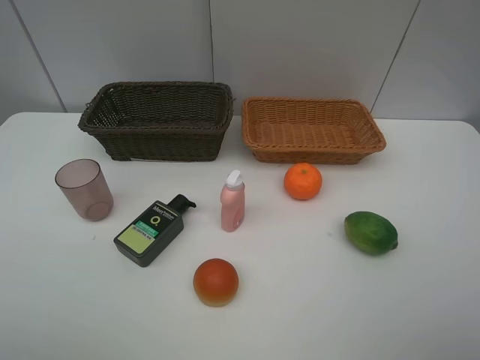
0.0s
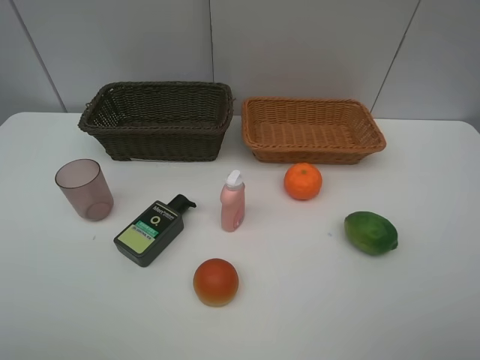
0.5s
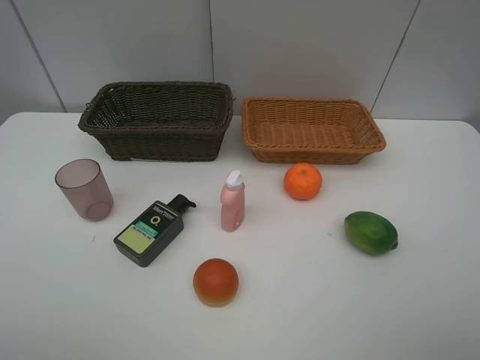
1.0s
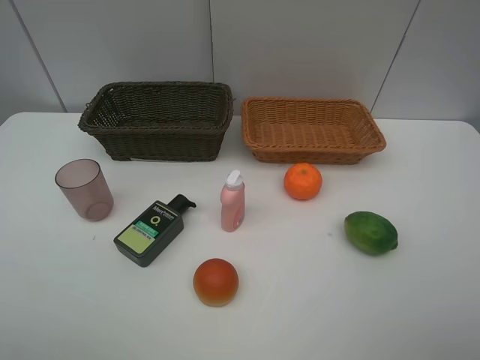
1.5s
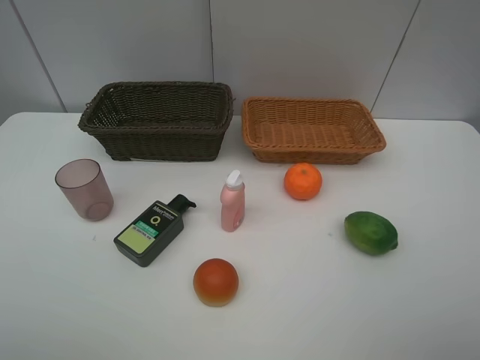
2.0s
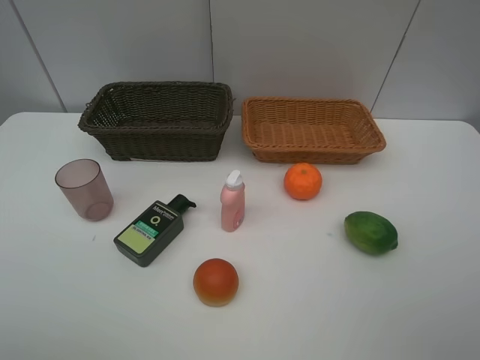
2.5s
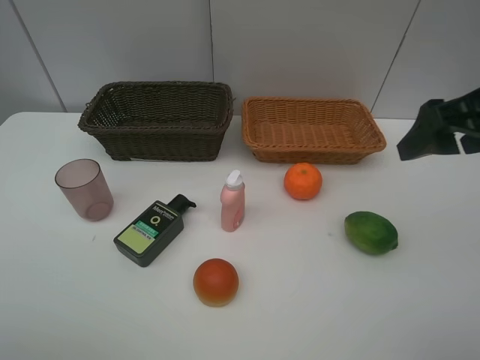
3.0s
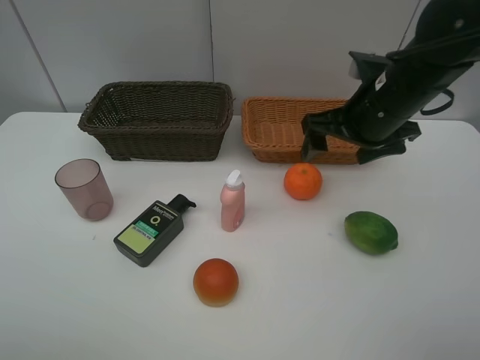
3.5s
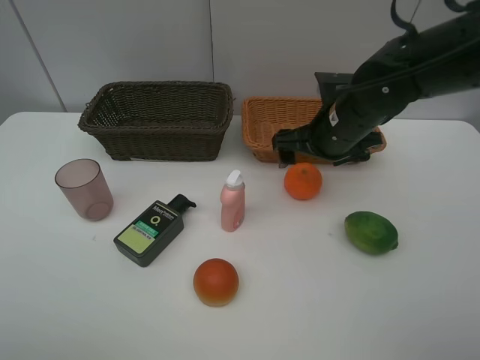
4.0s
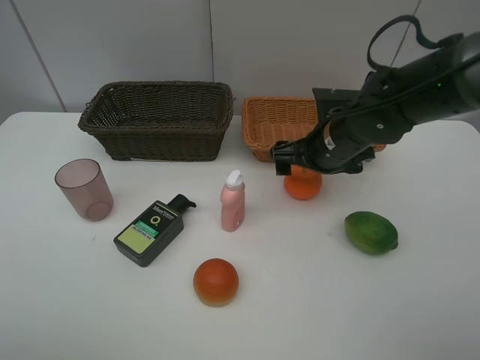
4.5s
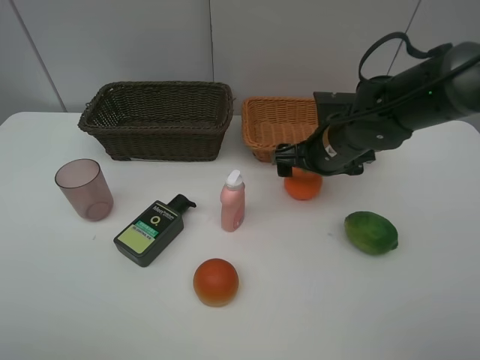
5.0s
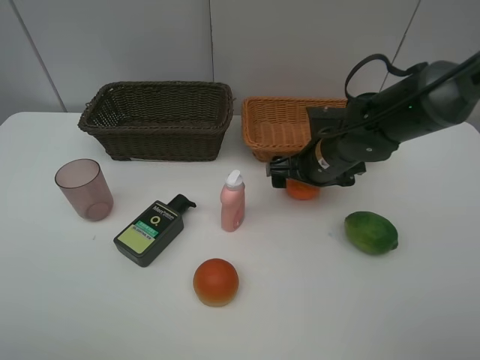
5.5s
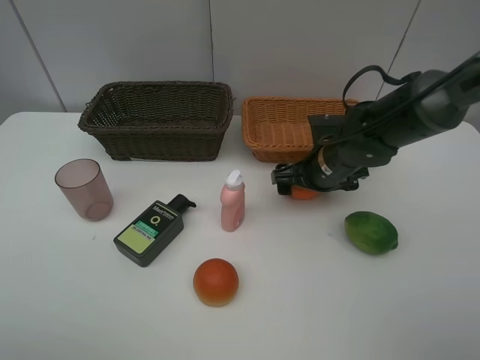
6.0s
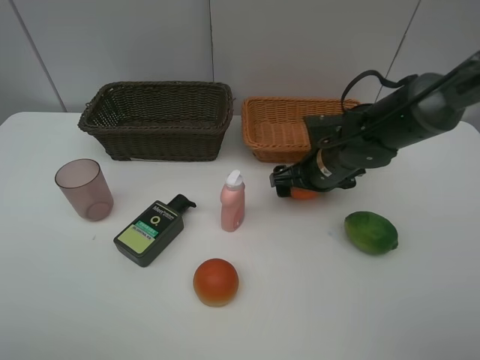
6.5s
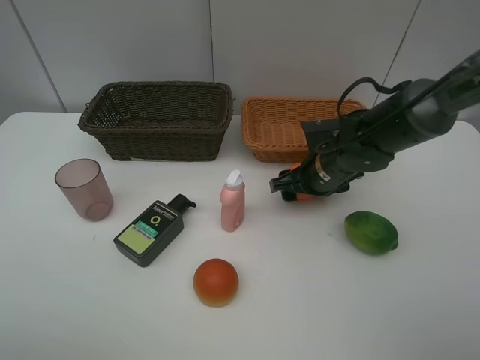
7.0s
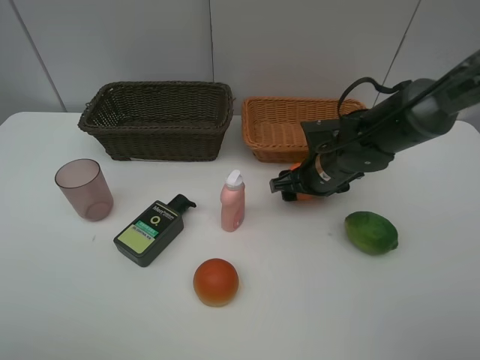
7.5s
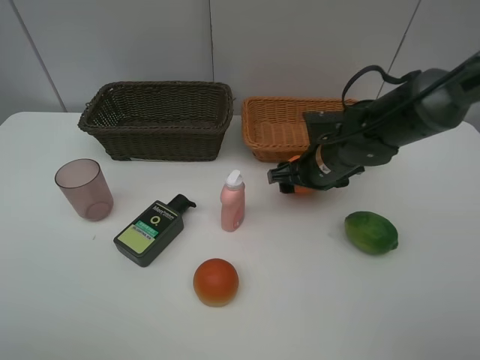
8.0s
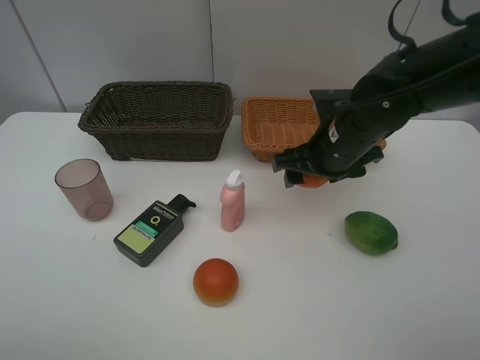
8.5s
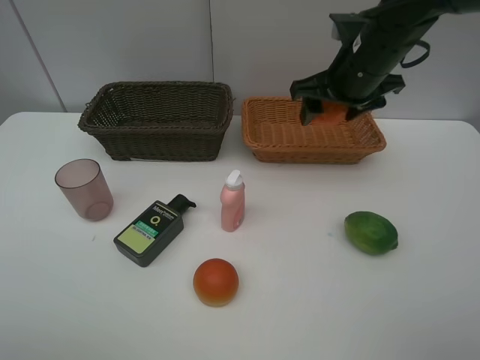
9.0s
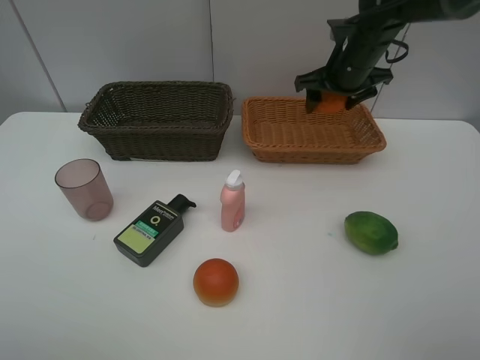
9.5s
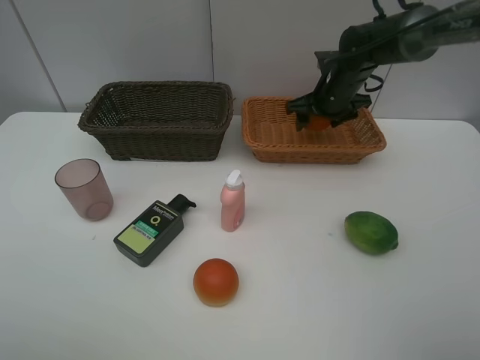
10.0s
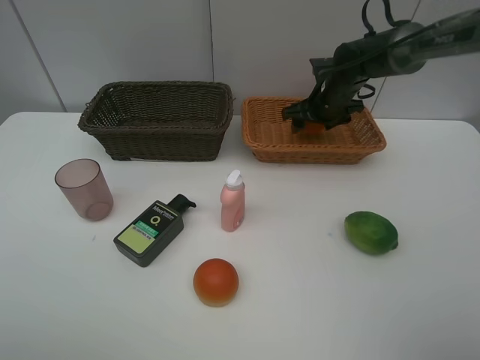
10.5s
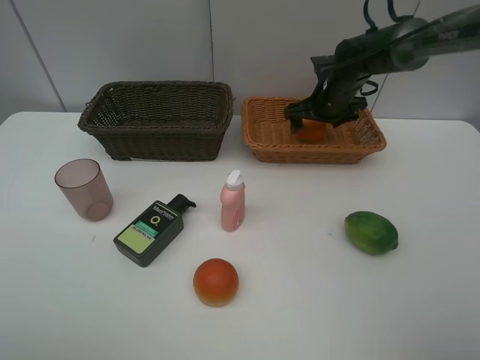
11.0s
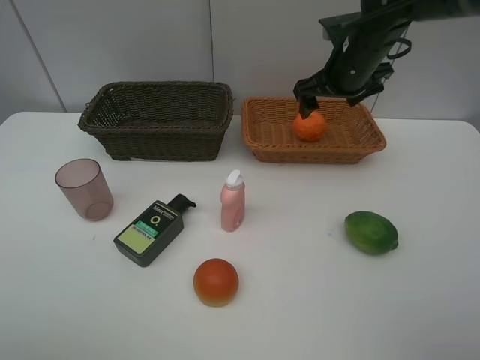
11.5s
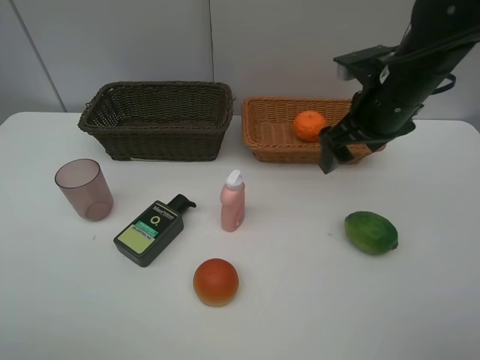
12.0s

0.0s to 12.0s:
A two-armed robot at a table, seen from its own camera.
Task of the whole recording: place multiple objects separately in different baskets.
0.0s to 2.0s: The two grippers keep their place.
2.0s to 4.0s: The right gripper goes roughly 35 cm forward and to the left.
4.0s to 6.0s: The right gripper heads downward, covering roughly 5 cm.
6.0s to 8.0s: The right gripper closes its fingers.
8.0s to 10.0s: The right gripper travels forward by roughly 15 cm.
10.0s to 12.0s: The right gripper shifts about 20 cm backward and upward.

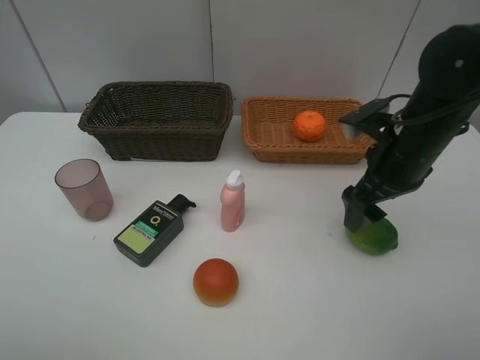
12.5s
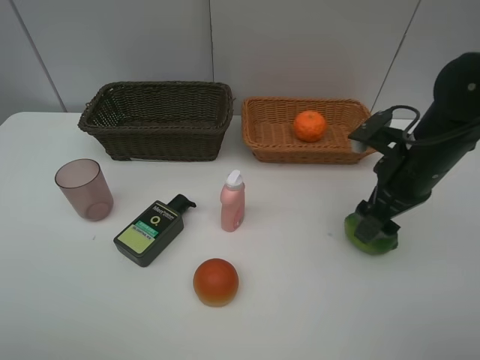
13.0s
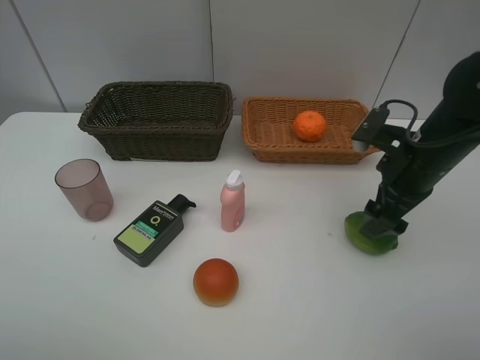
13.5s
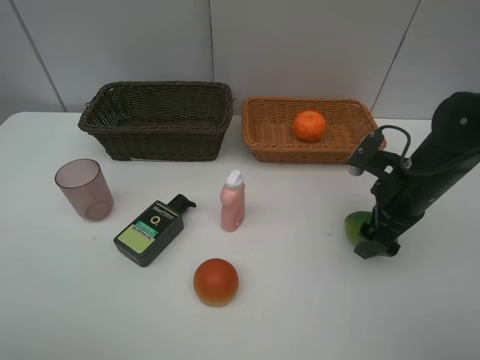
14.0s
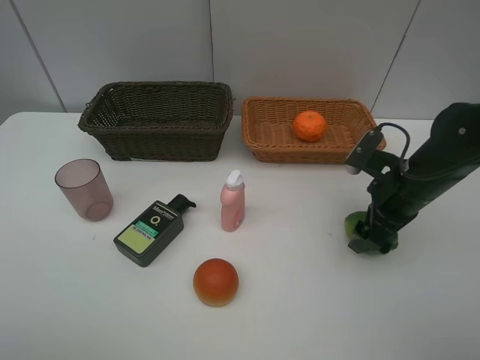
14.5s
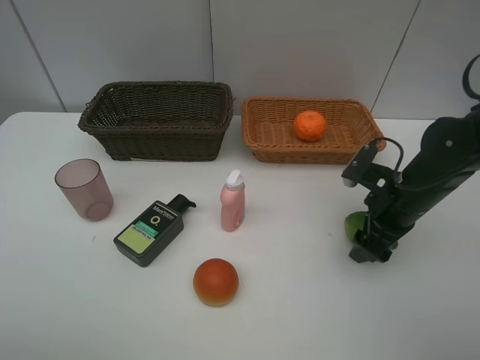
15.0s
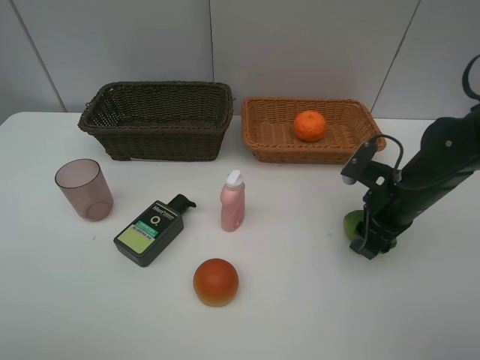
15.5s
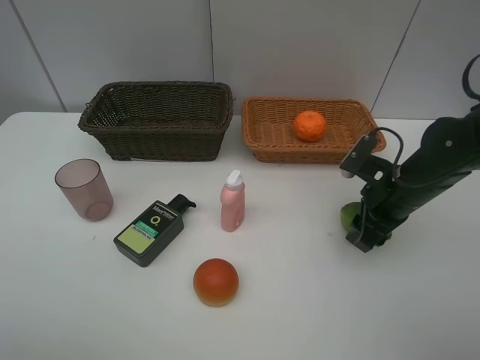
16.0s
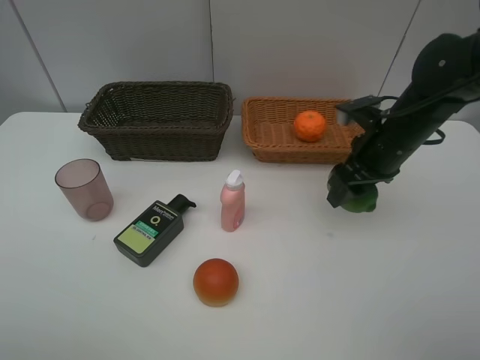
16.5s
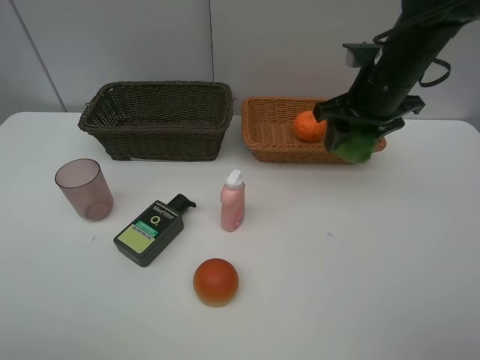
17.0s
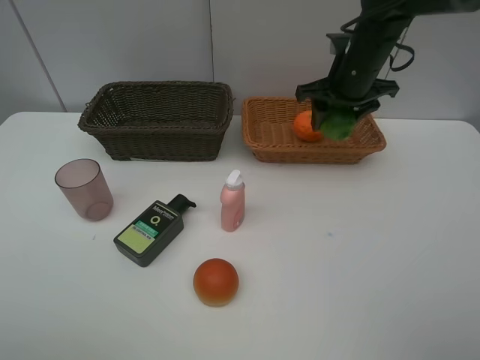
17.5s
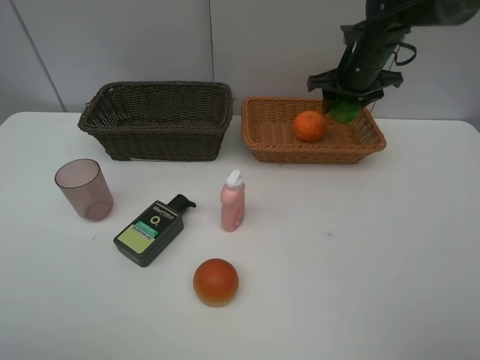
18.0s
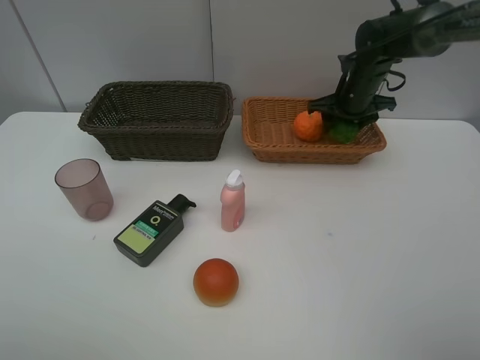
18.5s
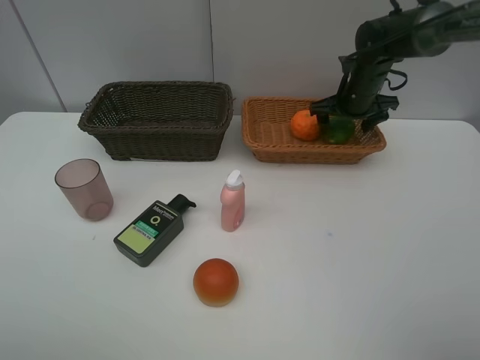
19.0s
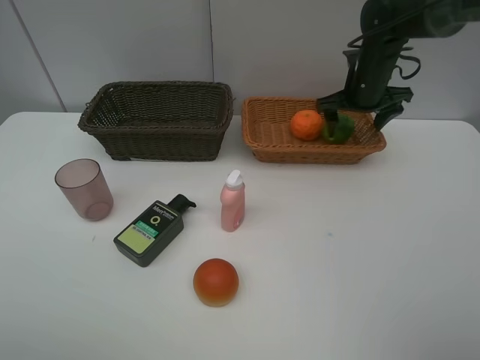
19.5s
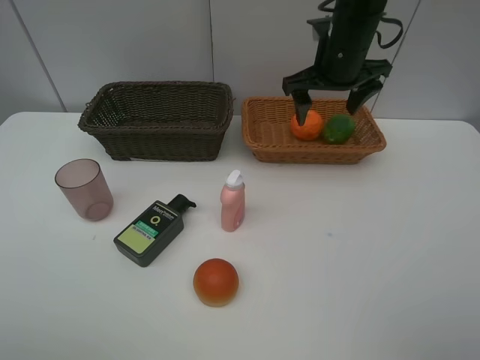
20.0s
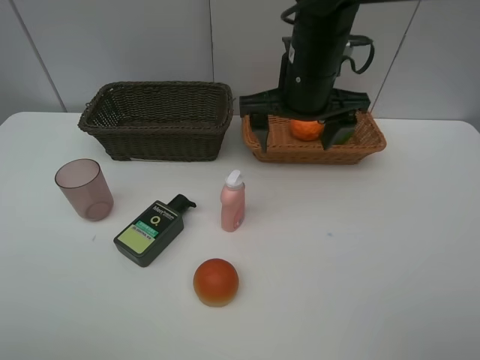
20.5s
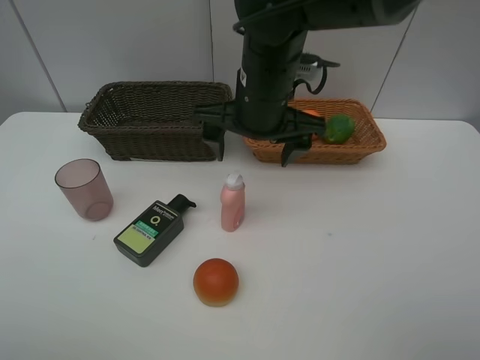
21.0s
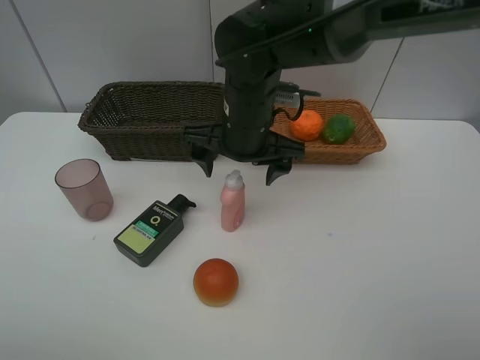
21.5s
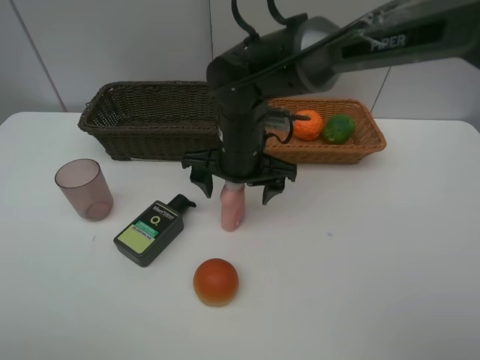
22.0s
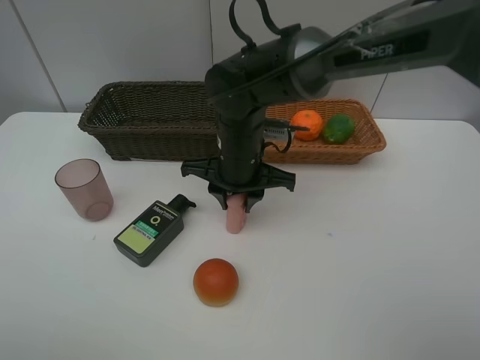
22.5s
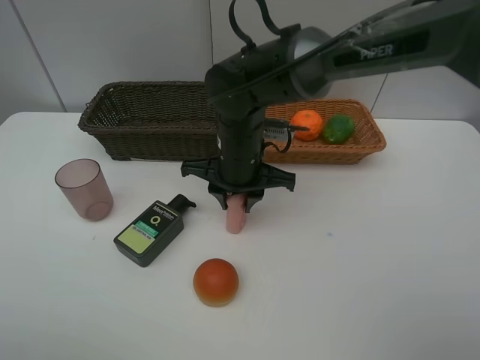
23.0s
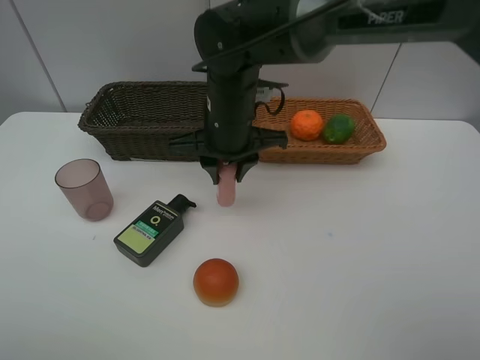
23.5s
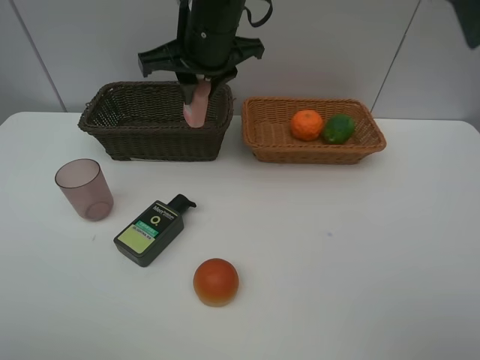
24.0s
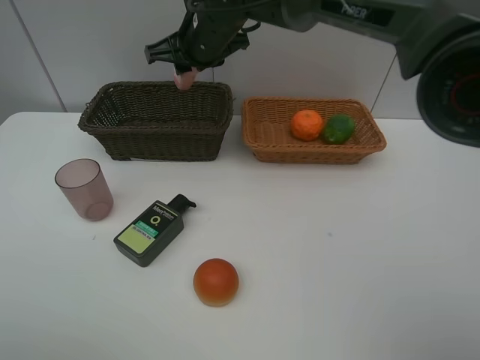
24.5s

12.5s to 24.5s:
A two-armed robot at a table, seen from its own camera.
Task of the whole recording: place multiple objects separately in different baskets.
12.5s to 14.5s: The right gripper is displaced downward by some 5 cm.
14.5s to 16.5s: The right gripper shifts by approximately 5 cm, and closes.
16.5s to 18.5s: The right gripper shifts approximately 15 cm forward.
18.5s to 20.5s: The right gripper heads backward, to the left and upward, covering roughly 25 cm, and opens.
20.5s to 22.5s: The right gripper moves downward and to the left, approximately 15 cm, and closes.
22.5s to 24.5s: The right gripper shifts about 15 cm forward and upward.

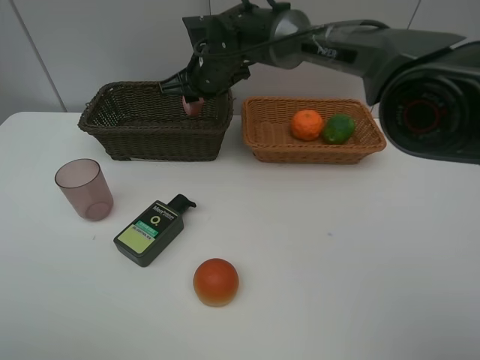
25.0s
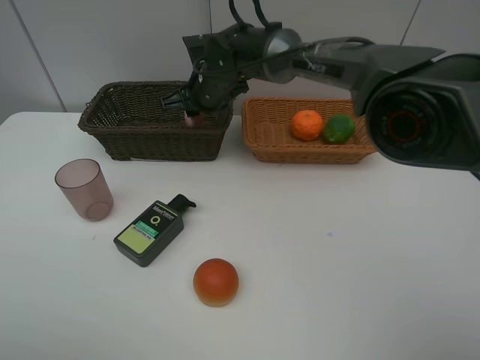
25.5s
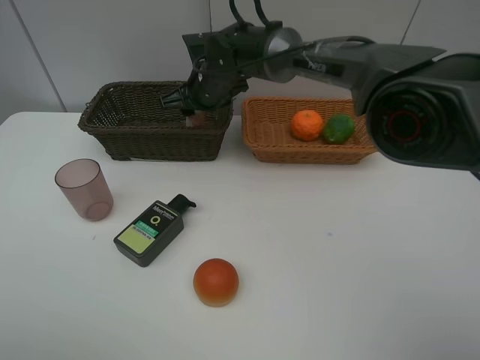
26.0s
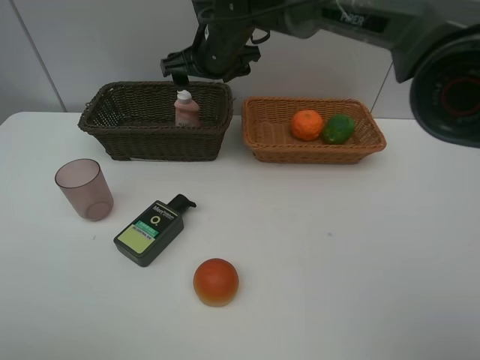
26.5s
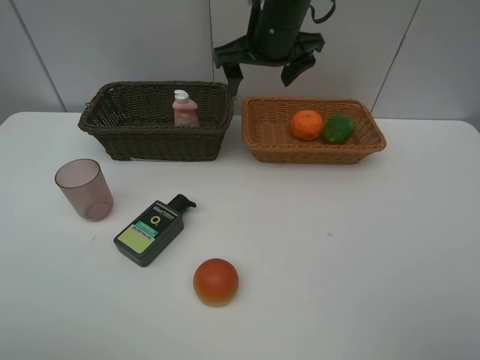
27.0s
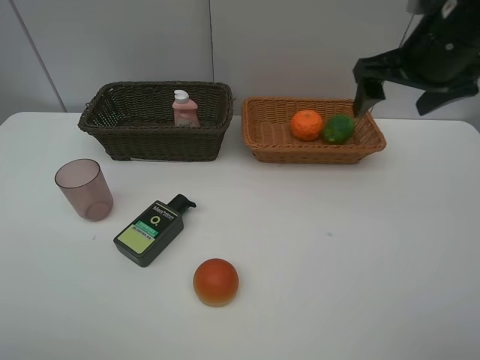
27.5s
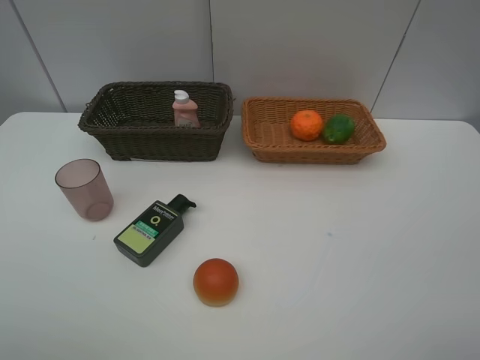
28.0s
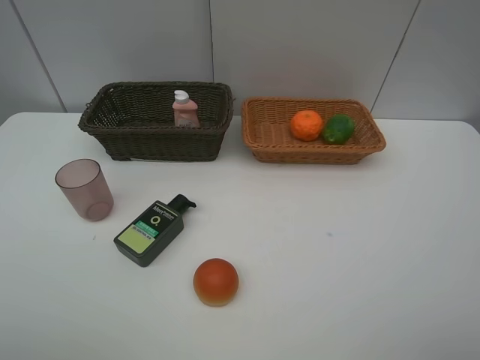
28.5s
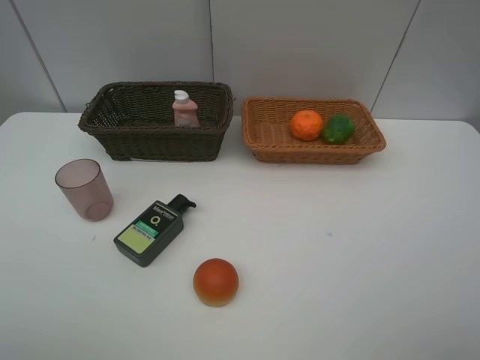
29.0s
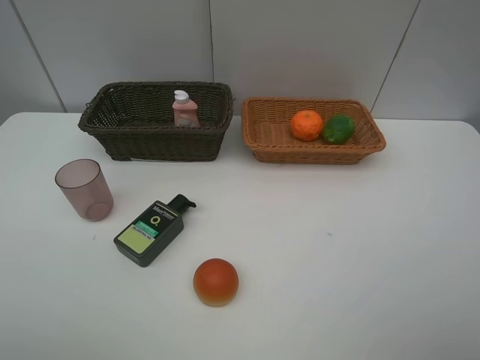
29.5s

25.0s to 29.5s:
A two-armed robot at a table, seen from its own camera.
Task of the whole recording: place multiple objects separately in different baskets.
25.0s to 27.0s: The right gripper travels to the right and upward by approximately 15 cm, and opens up.
27.0s to 29.5s: The right gripper heads backward and to the right, covering some 50 cm.
